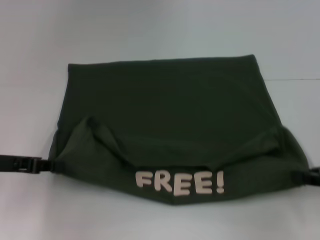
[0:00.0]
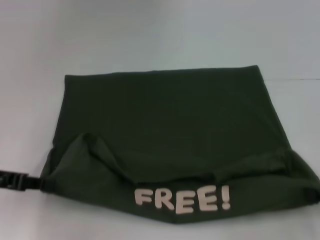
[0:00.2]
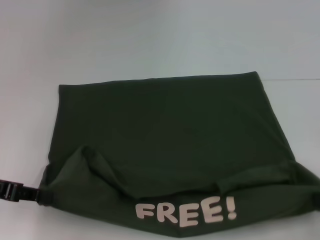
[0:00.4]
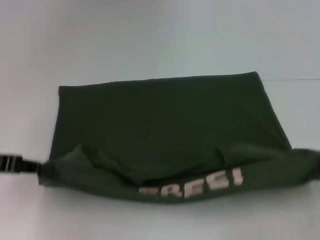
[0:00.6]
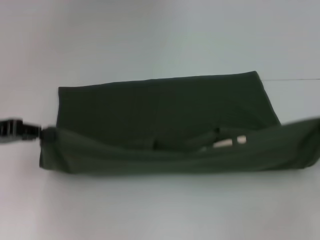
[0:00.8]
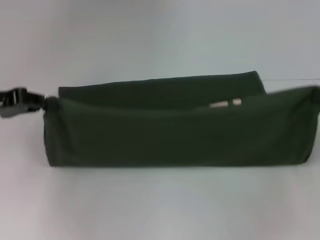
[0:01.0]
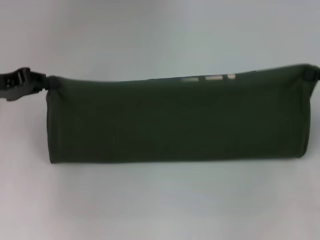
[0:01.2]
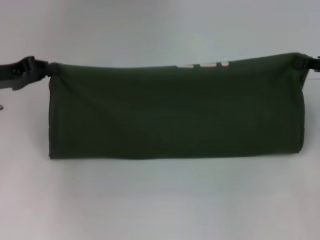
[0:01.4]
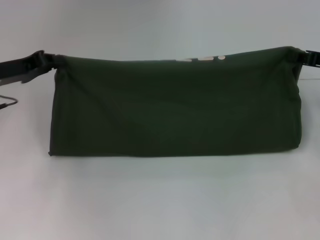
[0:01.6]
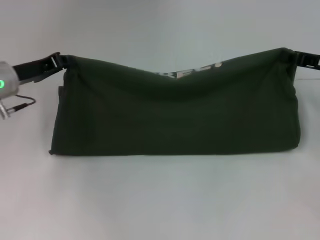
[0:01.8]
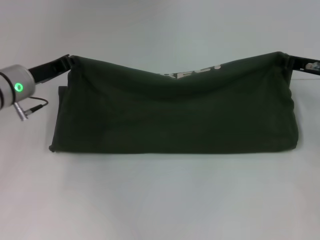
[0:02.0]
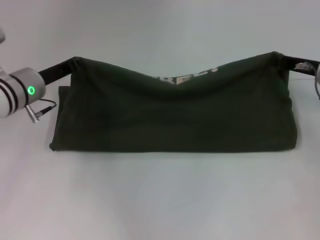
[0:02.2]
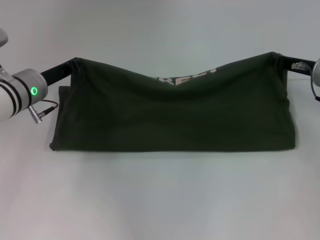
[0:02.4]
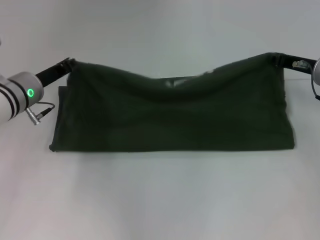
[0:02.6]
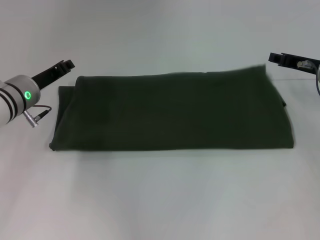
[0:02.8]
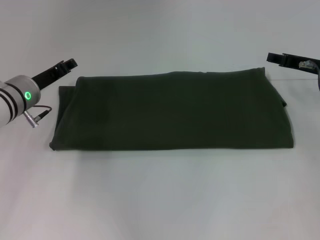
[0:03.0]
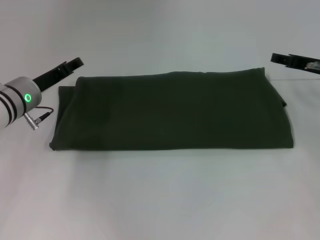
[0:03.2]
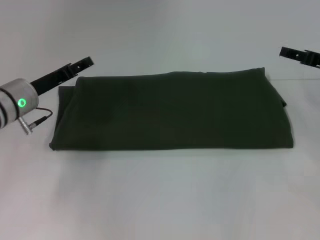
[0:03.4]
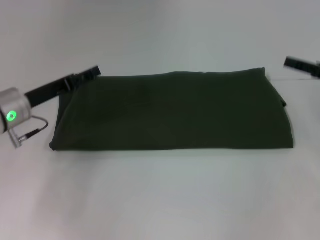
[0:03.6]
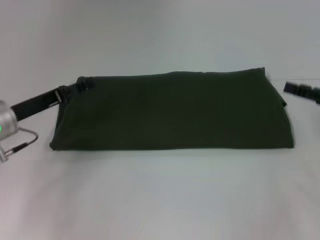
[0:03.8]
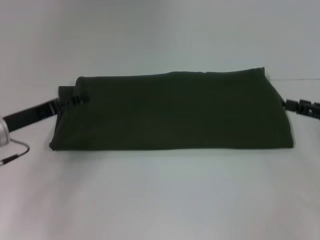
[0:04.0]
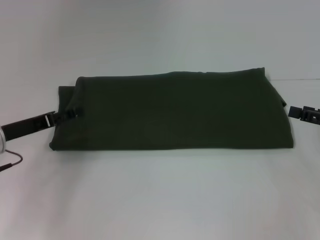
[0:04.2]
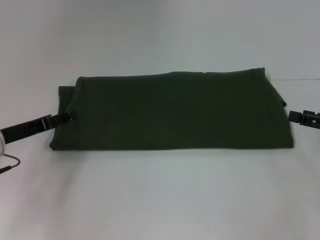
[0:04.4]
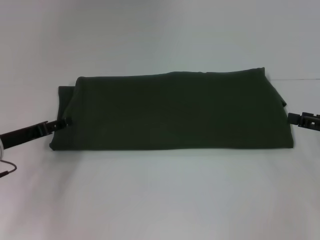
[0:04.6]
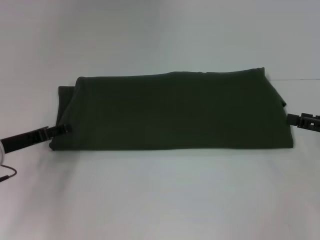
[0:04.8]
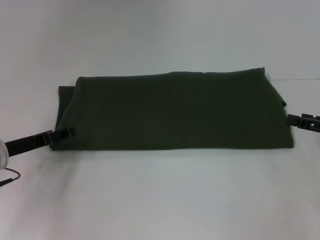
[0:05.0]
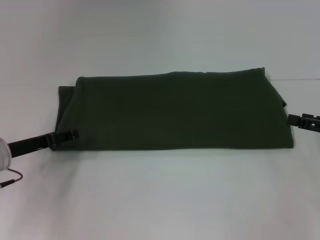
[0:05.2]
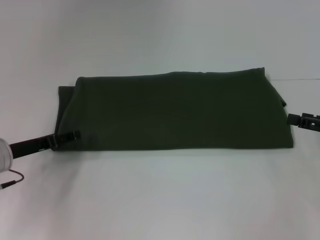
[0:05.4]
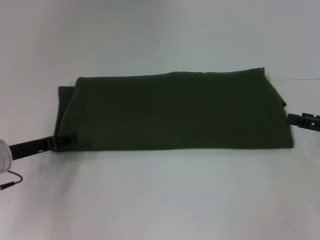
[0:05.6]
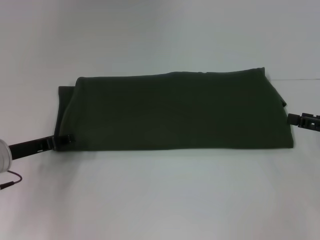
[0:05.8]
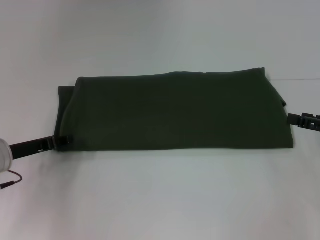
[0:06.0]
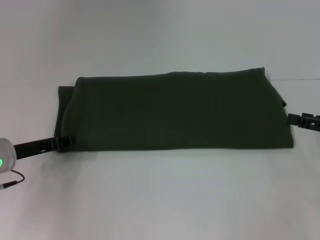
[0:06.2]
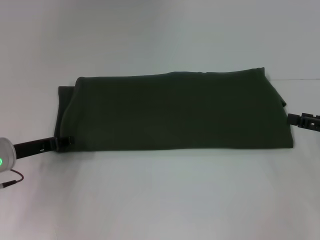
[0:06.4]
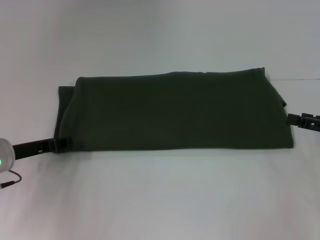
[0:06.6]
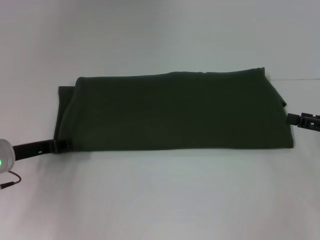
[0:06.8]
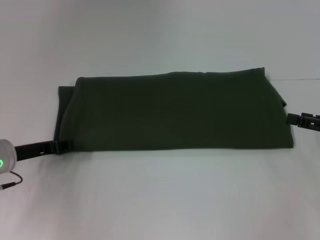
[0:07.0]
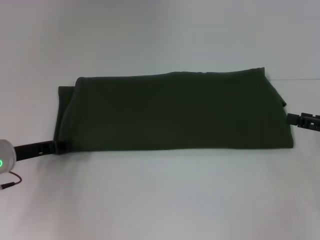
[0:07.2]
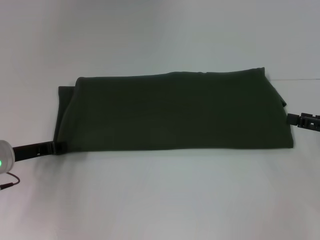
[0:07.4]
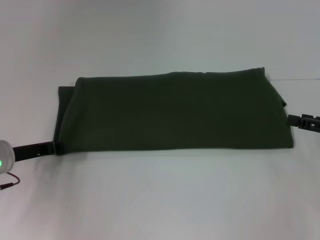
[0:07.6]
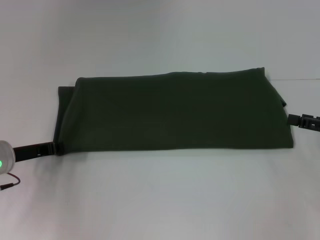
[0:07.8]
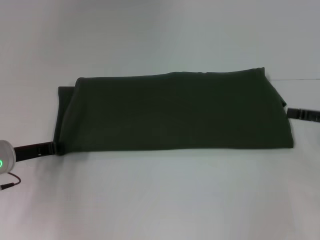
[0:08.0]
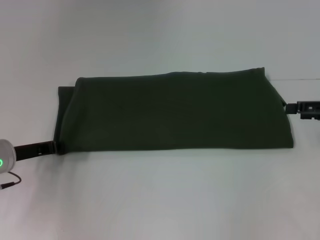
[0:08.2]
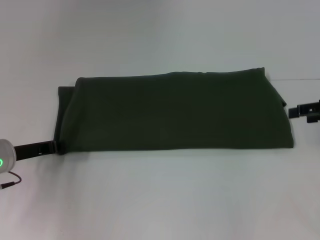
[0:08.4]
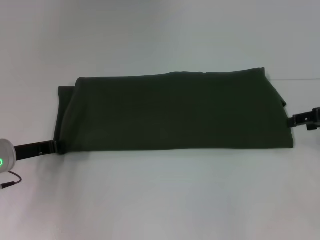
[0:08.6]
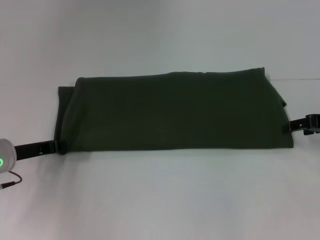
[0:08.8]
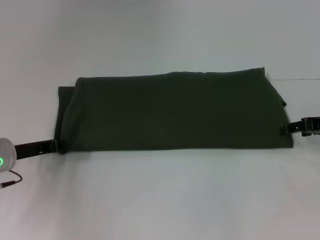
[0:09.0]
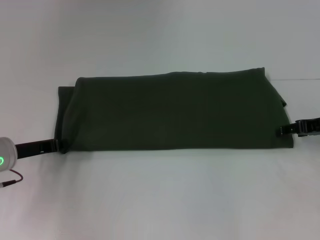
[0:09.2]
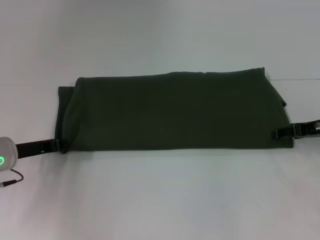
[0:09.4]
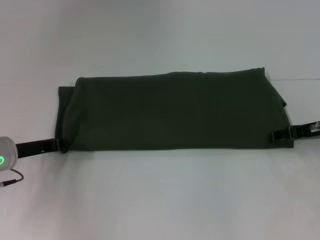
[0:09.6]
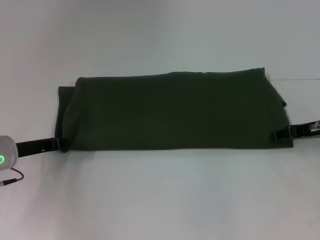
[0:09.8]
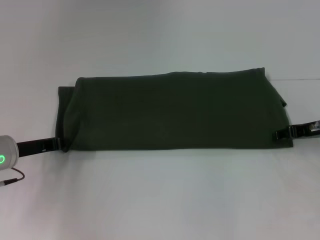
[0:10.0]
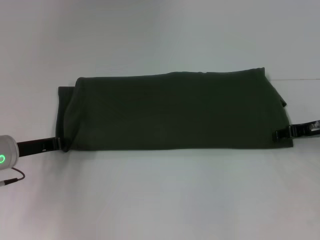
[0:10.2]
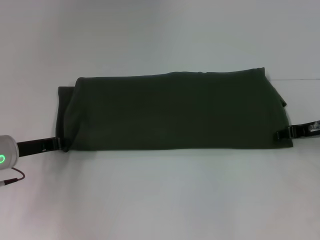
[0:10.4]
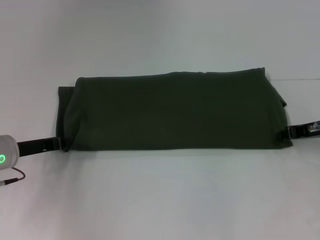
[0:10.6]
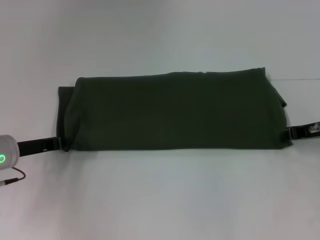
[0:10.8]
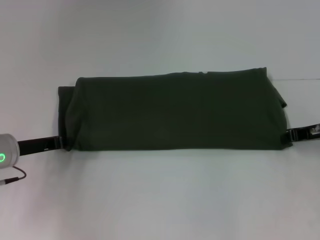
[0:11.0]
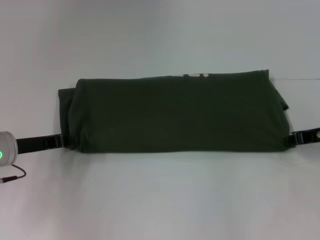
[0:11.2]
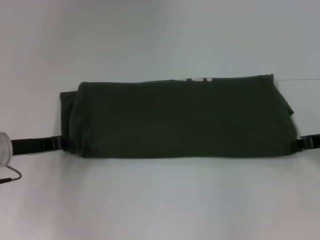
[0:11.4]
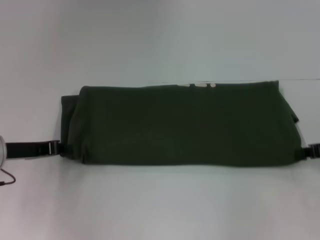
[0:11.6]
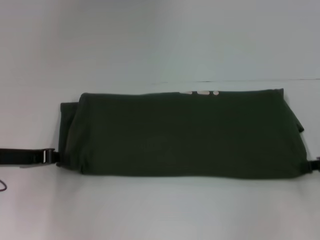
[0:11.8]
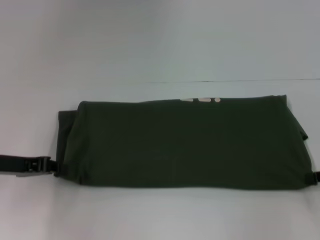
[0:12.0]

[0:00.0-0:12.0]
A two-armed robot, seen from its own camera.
Step, 0:00.6 to 0:02.8: Fold the clothes with your right hand.
0:00.0 to 0:01.6: Both grippers move forward, roughly 10 cm.
0:01.6 to 0:03.0: The left gripper goes some 10 cm to the right and downward. The right gripper shifts by some 5 cm, and opens.
0:03.0 to 0:04.4: The left gripper travels backward and to the left by some 10 cm, and opens; the right gripper travels backward and to the right by approximately 15 cm.
0:04.4 to 0:06.0: The left gripper closes.
0:06.0 to 0:07.6: The grippers stay close to where they were, moving slightly.
0:07.6 to 0:09.0: The right gripper shifts some 10 cm forward.
0:09.0 to 0:10.4: The right gripper closes its fingers.
0:10.4 to 0:12.0: The left gripper shifts by roughly 5 cm. Meanwhile the right gripper moves backward and to the right, approximately 10 cm, and closes its fingers.

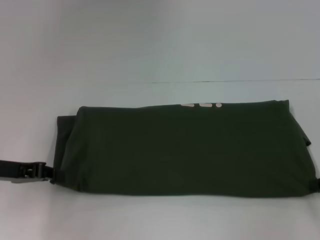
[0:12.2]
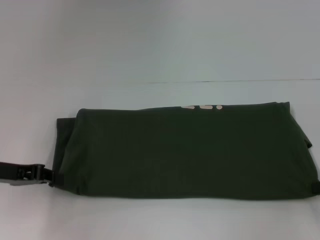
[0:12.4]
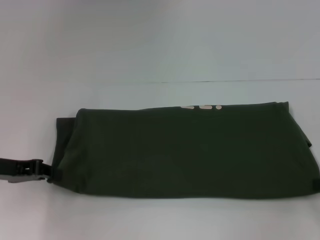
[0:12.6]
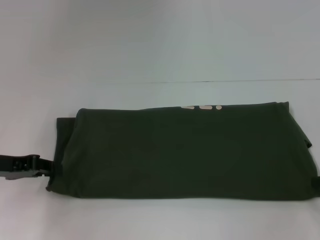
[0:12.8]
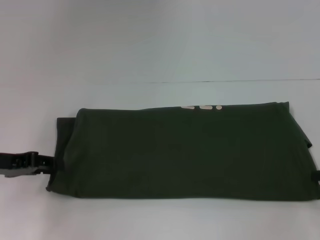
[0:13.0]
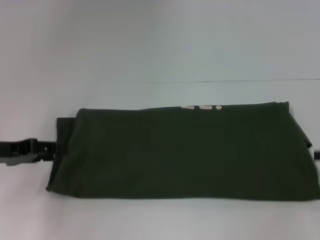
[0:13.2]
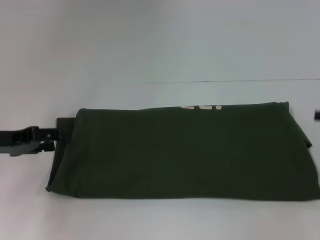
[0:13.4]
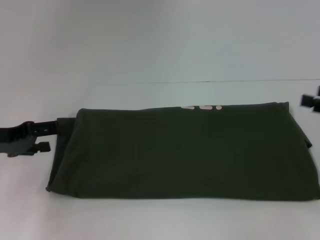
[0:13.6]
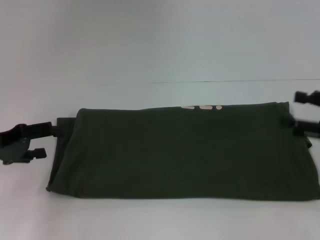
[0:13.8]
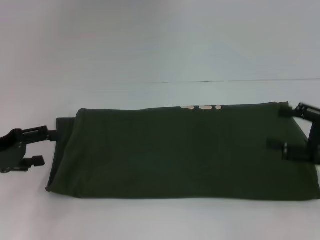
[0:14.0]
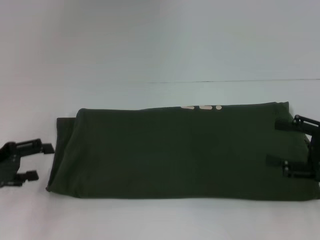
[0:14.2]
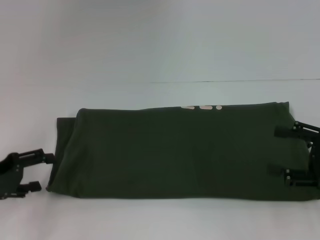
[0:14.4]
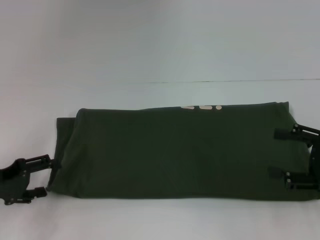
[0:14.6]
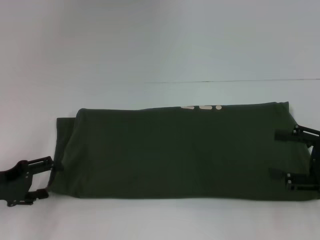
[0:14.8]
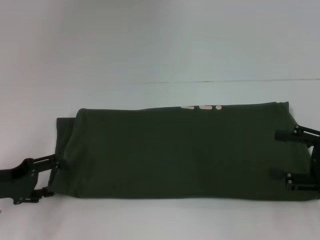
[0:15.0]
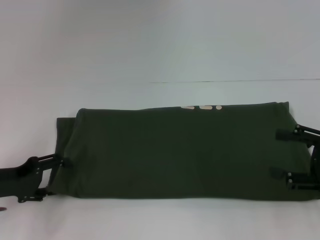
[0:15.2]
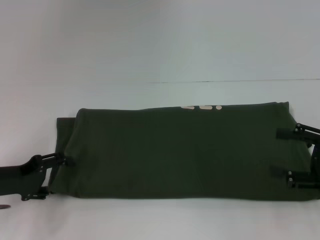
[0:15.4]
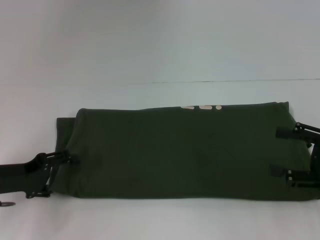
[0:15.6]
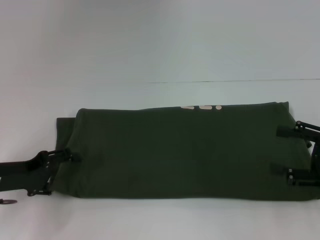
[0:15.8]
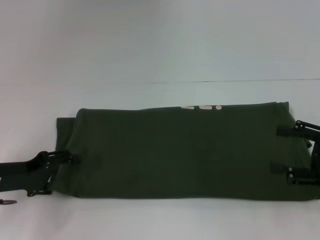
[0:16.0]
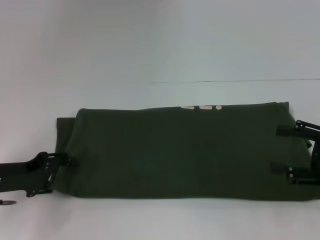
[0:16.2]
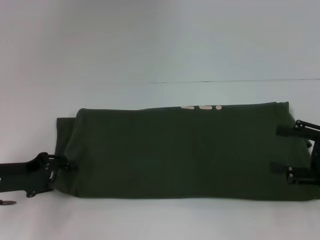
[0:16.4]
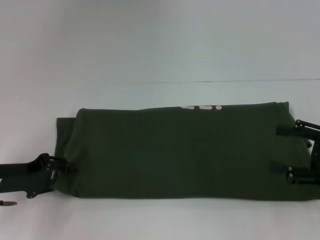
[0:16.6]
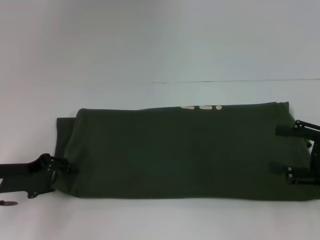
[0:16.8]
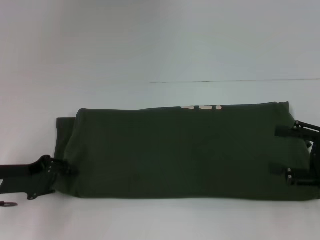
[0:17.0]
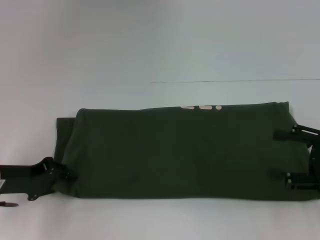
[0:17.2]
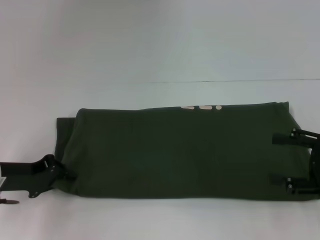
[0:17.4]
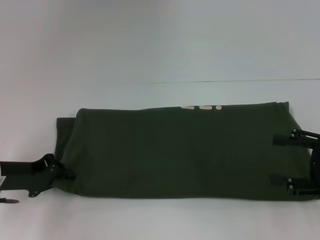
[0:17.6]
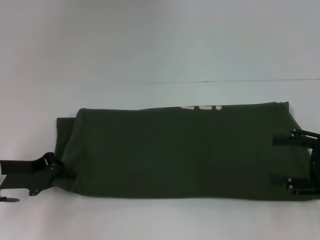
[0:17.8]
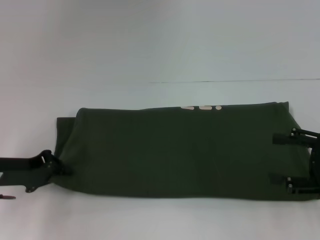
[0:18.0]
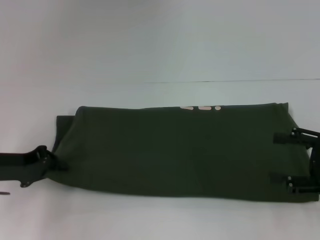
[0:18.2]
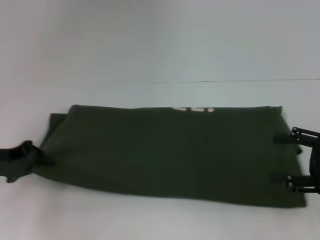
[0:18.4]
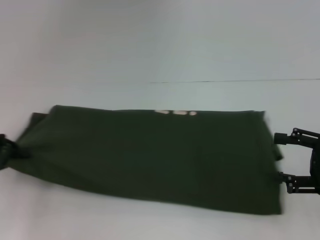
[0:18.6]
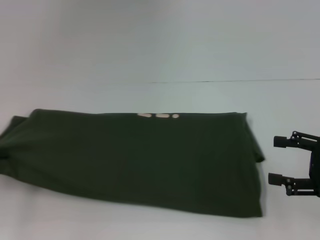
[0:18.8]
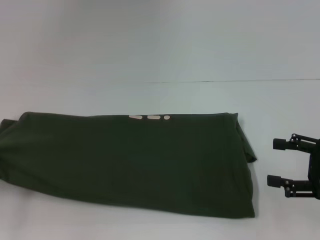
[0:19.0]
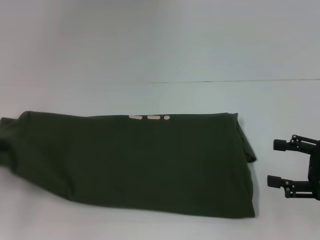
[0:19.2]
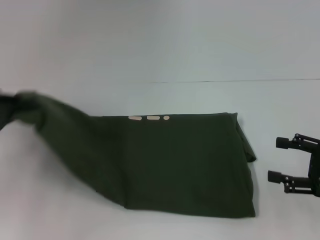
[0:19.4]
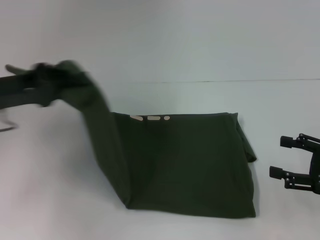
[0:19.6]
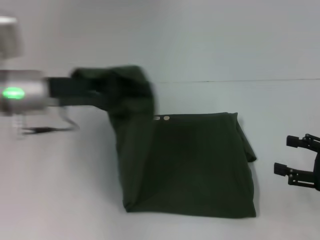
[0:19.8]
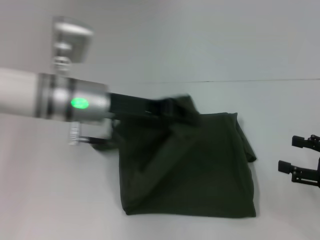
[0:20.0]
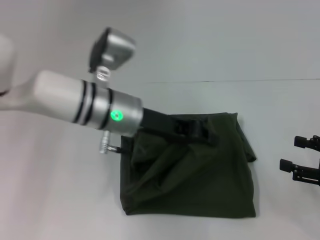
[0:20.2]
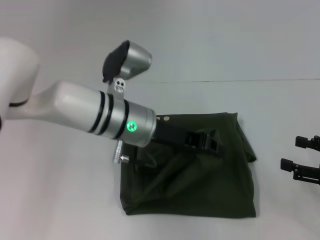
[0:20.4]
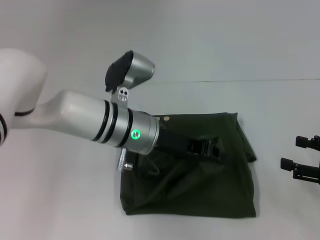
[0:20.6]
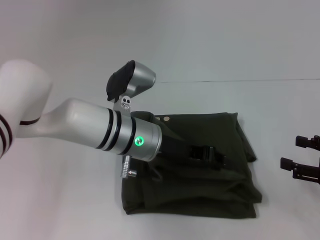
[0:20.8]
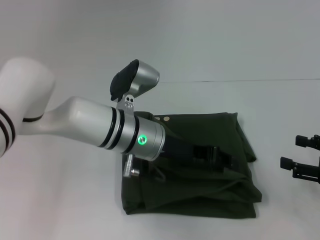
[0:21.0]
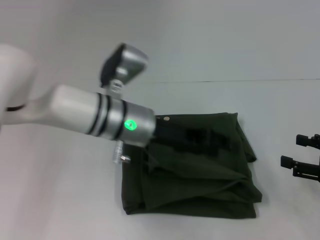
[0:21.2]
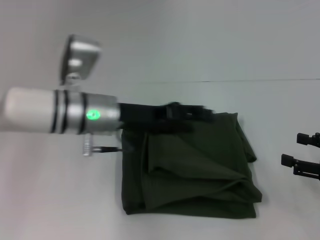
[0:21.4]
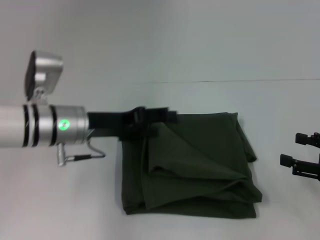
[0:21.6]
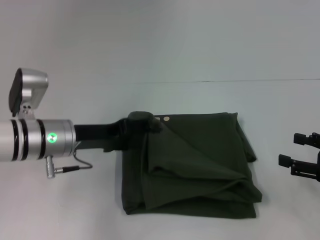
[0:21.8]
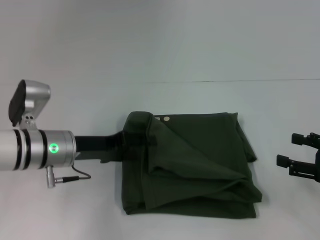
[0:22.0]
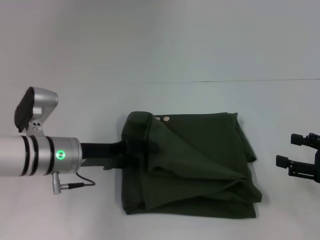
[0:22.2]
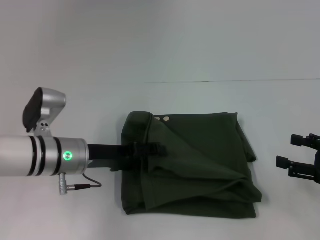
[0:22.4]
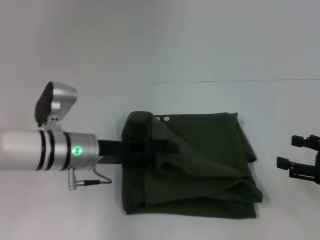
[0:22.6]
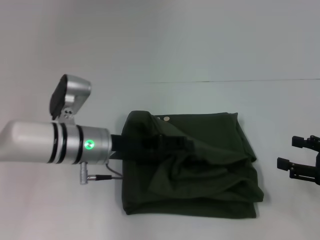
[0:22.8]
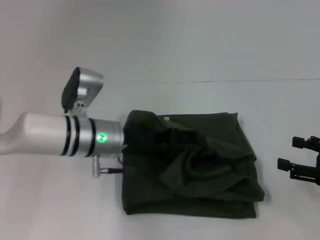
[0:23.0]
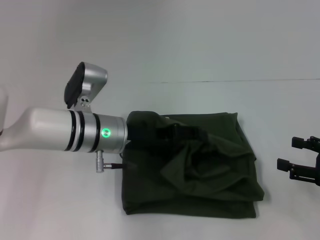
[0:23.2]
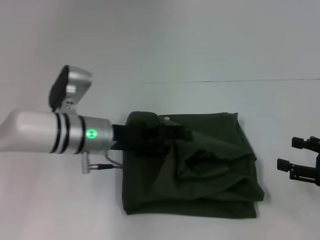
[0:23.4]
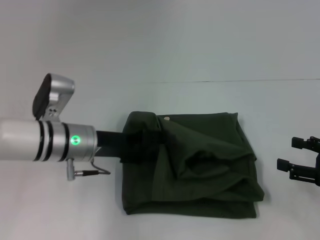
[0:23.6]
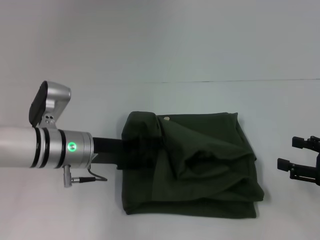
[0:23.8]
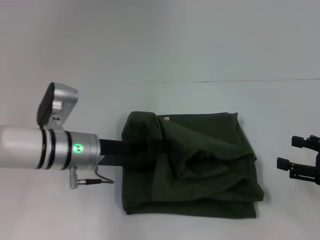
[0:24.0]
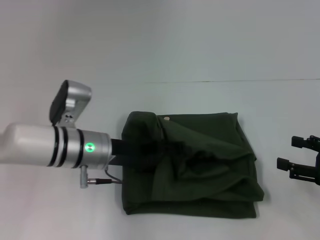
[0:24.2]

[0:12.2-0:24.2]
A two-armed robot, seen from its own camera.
Step, 0:12.2 to 0:21.2: Fold the clothes with your left hand.
0:12.2 to 0:13.8: The right gripper opens up. The left gripper opens its fingers.
0:13.8 to 0:15.2: The left gripper heads downward, covering about 5 cm.
0:15.2 to 0:16.6: There are only small adjustments of the grippers.
0:16.6 to 0:18.2: The left gripper closes up.
0:18.2 to 0:19.8: The left gripper is displaced to the right and upward by about 15 cm.
0:19.8 to 0:21.2: The left gripper goes approximately 15 cm to the right, and opens its fingers.
0:21.2 to 0:22.6: The left gripper heads to the left and downward, covering about 10 cm, and opens up.
0:22.6 to 0:24.2: The grippers stay close to where they were, moving slightly.
